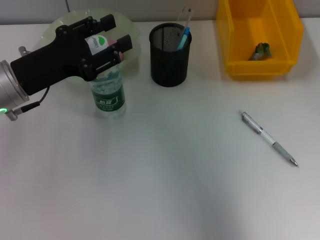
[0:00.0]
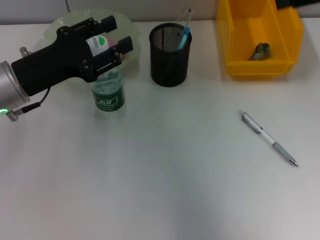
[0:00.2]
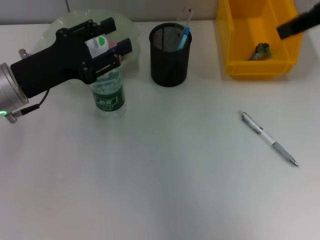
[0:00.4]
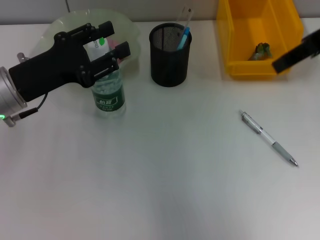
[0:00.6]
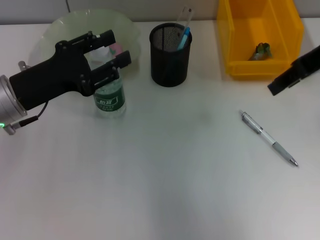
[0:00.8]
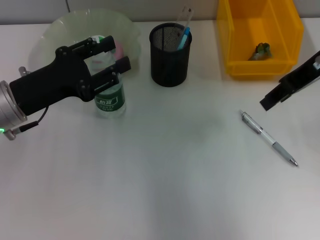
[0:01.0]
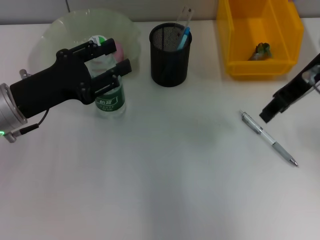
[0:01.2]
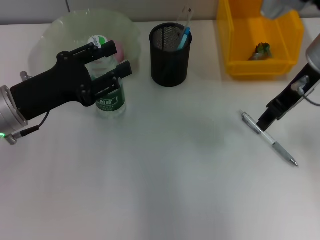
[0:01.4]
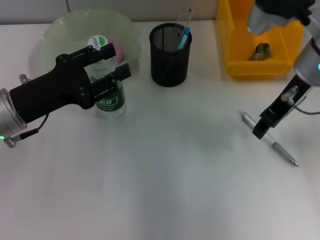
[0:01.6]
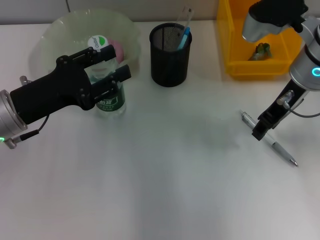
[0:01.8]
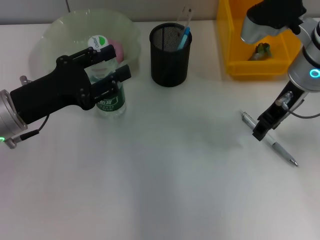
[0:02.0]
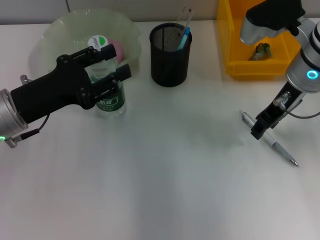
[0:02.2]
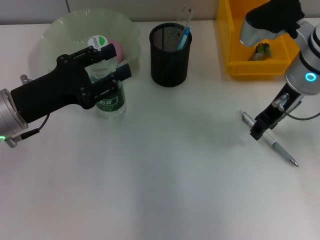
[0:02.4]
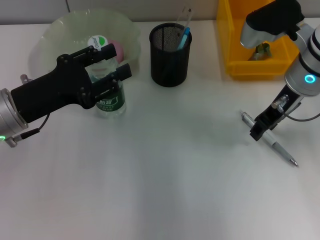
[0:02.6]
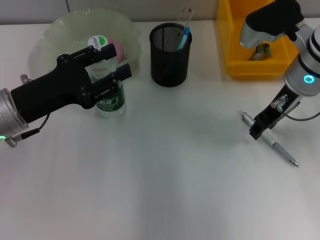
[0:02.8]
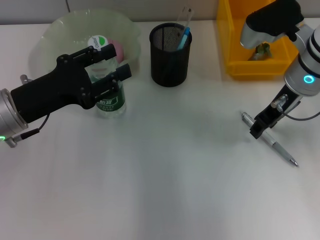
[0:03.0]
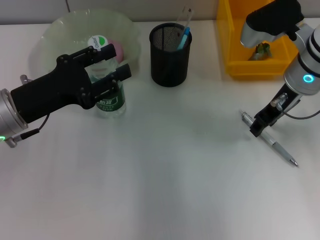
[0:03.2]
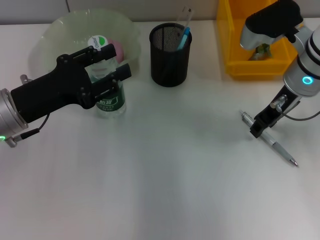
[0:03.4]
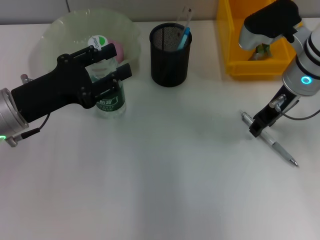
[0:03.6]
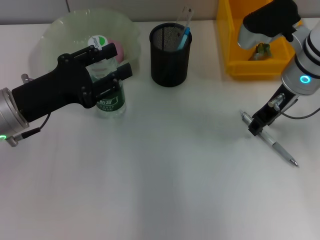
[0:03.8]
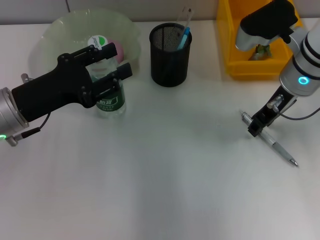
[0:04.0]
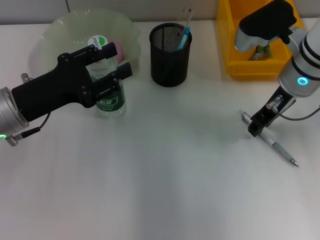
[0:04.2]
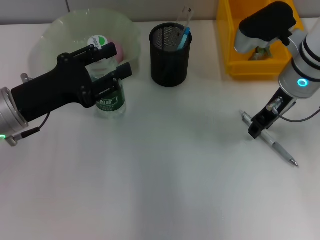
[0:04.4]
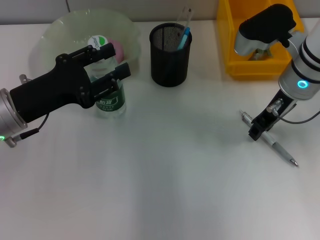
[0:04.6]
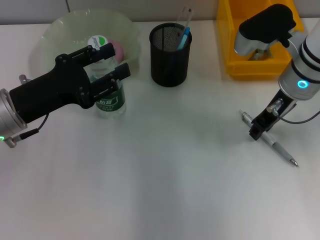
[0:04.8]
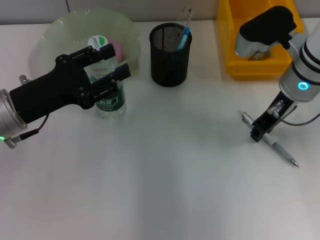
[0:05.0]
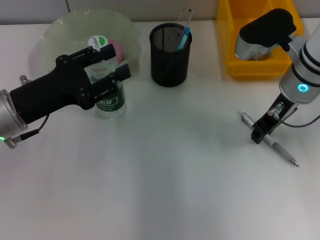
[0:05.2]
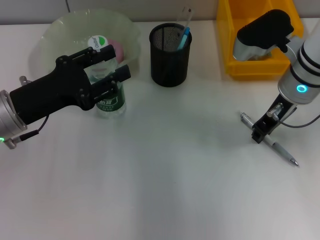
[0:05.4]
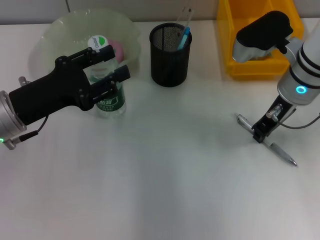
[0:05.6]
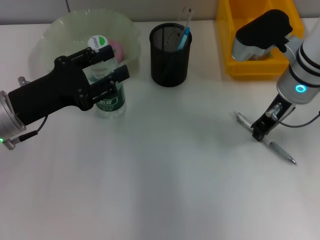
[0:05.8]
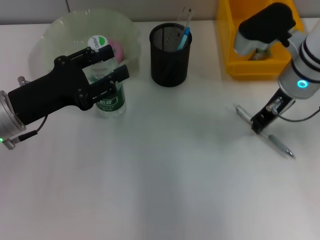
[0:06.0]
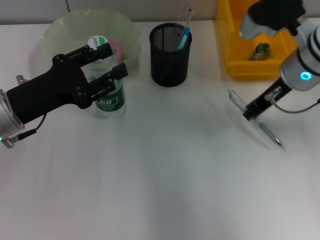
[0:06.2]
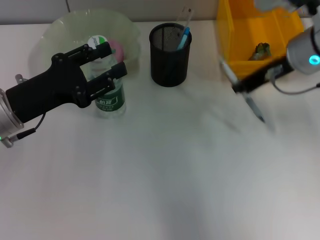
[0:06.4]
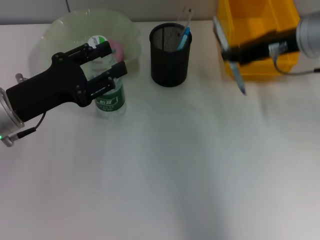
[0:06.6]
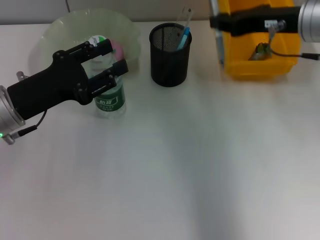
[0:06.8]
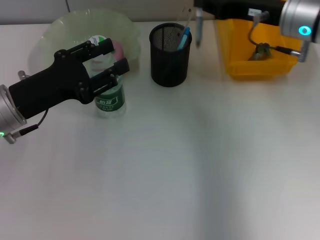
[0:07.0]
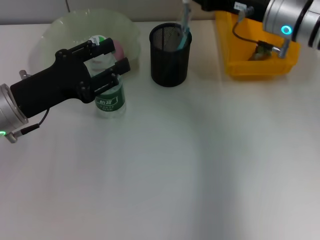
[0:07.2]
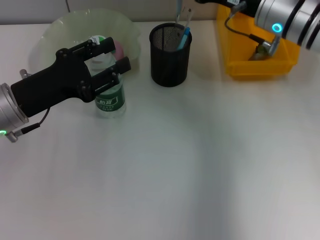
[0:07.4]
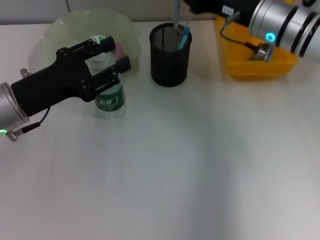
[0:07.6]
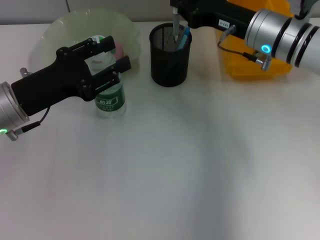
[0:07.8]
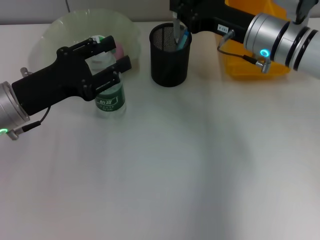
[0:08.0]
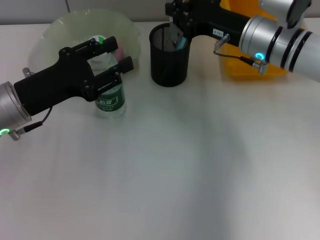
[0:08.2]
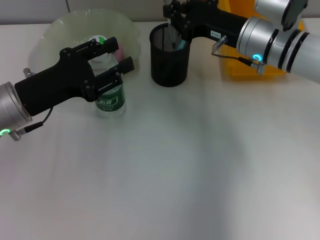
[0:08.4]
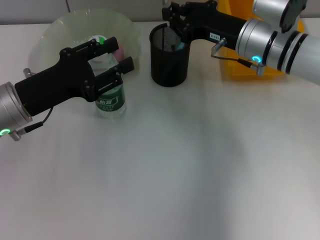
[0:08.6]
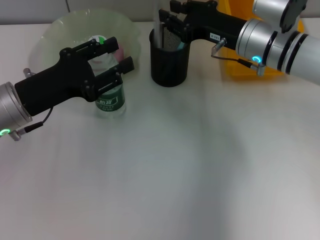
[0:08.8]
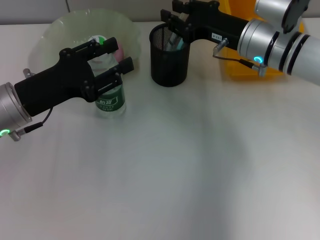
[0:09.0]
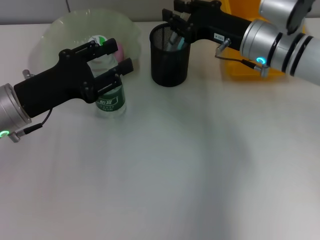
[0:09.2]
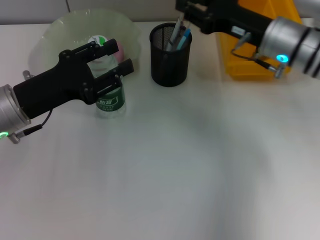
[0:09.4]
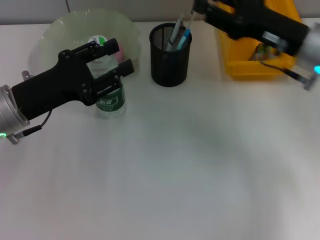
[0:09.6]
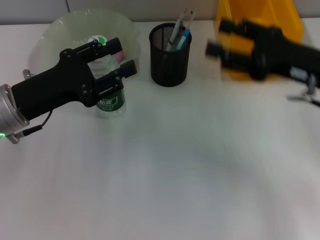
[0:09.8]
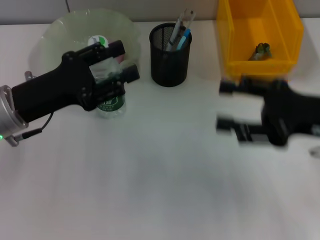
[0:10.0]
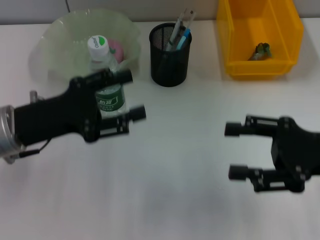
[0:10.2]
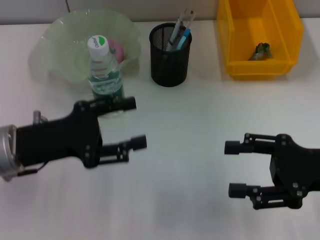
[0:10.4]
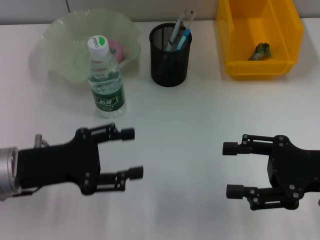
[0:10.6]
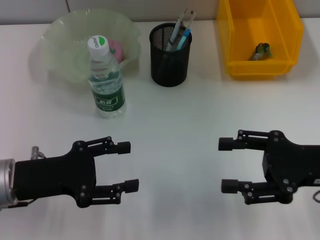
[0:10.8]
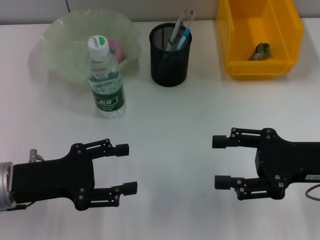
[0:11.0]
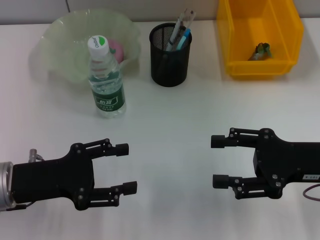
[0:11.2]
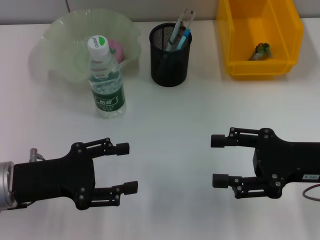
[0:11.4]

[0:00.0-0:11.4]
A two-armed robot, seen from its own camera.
Step, 0:00.0 to 0:05.4: Grab the gray spring-action pen with the right hand.
Step, 0:05.8 to 0:09.2: Place the gray spring-action pen into the pen holder with the right hand.
0:00.0 to 0:01.4: The right gripper travels downward, to the left and forward by about 15 cm.
0:01.4 to 0:02.8: The right gripper travels downward by some 5 cm.
0:02.8 to 0:04.2: The two grippers keep their place.
0:04.2 to 0:05.6: Neither gripper changes place.
0:07.2 to 0:08.6: The right gripper moves about 5 cm.
0:08.6 to 0:10.0: The right gripper heads backward and to the right, covering some 20 cm, and opens.
0:10.0 to 0:11.4: The left gripper heads backward, covering roughly 5 cm.

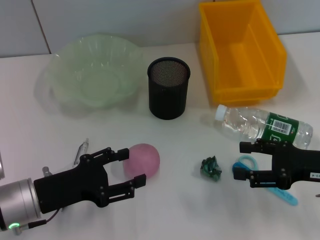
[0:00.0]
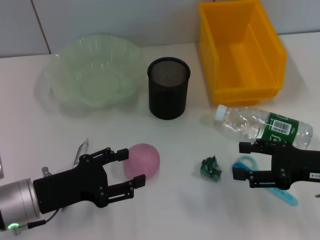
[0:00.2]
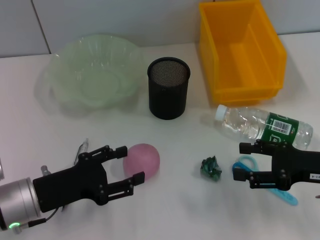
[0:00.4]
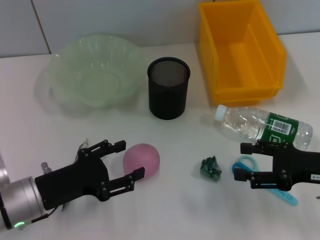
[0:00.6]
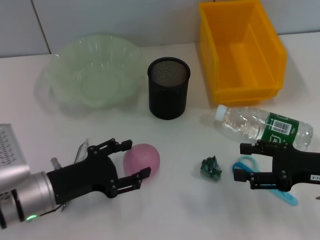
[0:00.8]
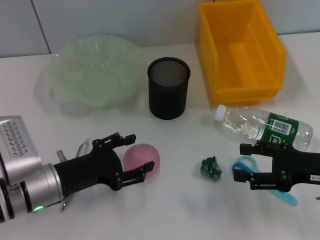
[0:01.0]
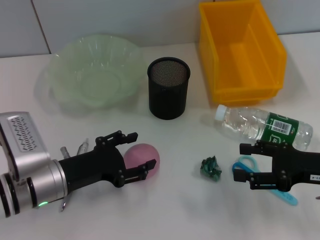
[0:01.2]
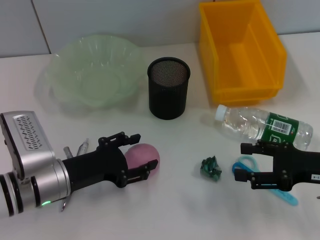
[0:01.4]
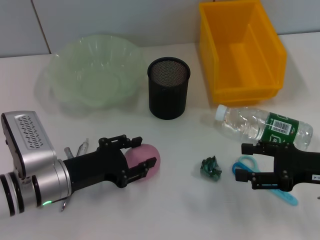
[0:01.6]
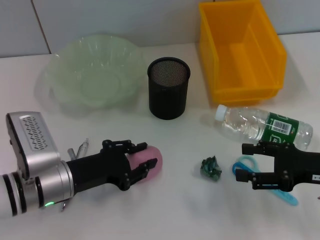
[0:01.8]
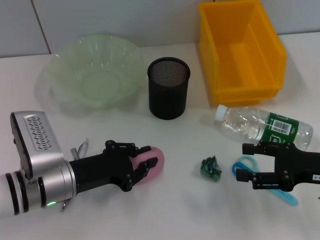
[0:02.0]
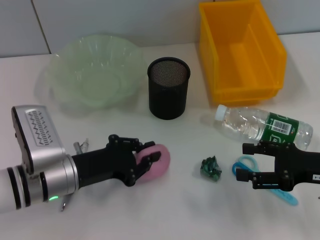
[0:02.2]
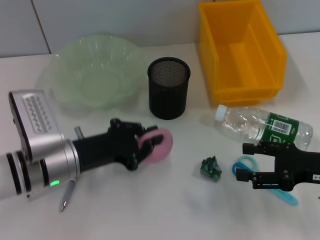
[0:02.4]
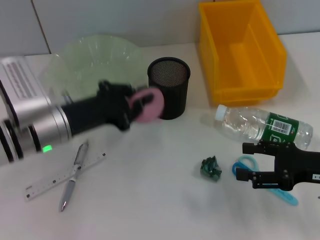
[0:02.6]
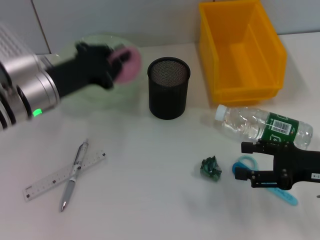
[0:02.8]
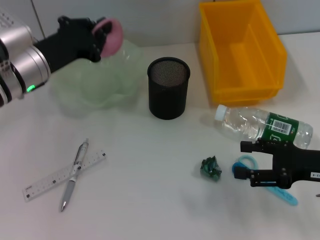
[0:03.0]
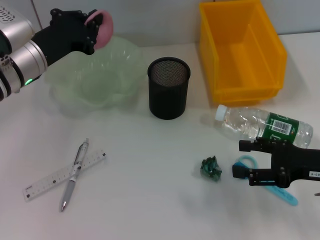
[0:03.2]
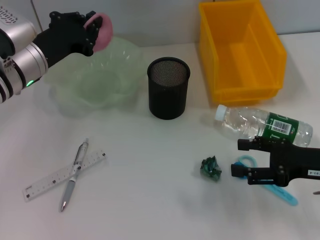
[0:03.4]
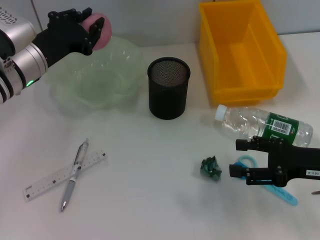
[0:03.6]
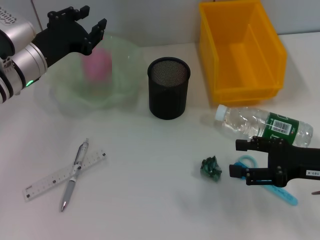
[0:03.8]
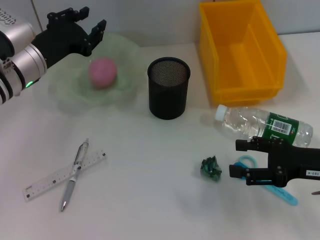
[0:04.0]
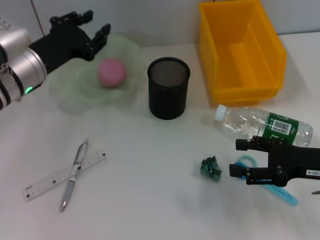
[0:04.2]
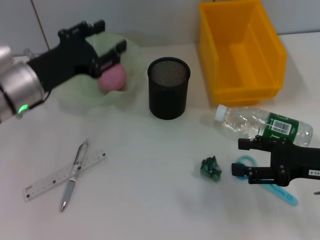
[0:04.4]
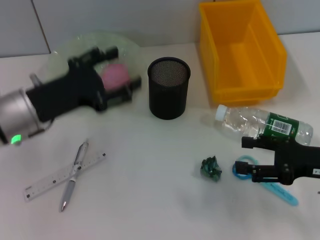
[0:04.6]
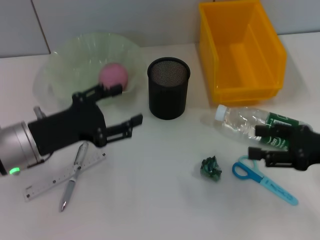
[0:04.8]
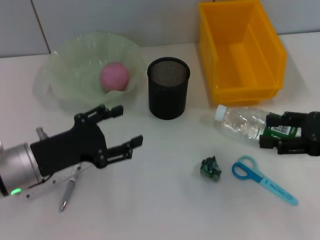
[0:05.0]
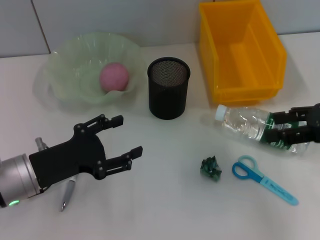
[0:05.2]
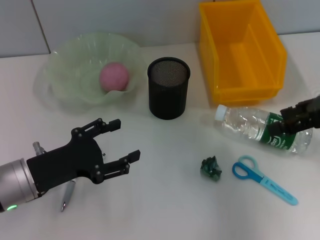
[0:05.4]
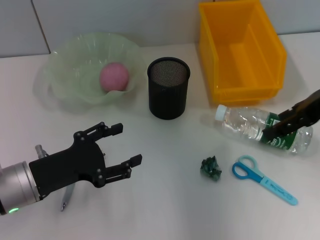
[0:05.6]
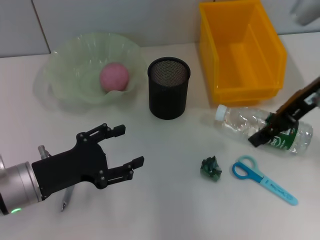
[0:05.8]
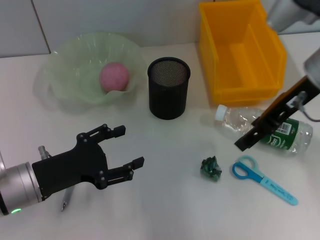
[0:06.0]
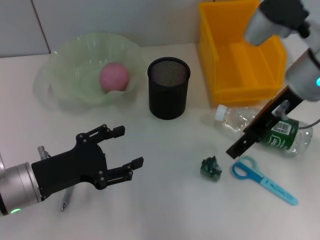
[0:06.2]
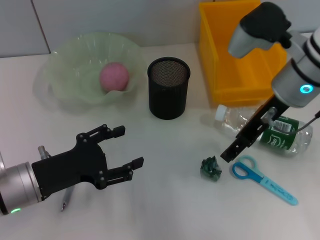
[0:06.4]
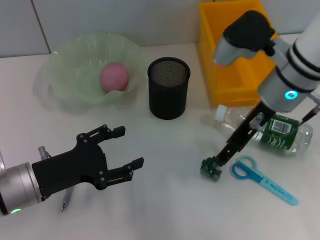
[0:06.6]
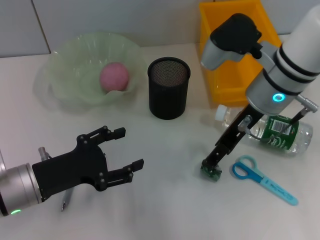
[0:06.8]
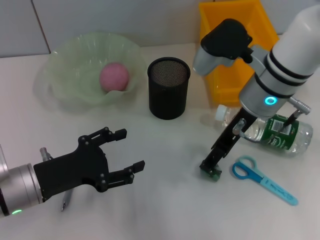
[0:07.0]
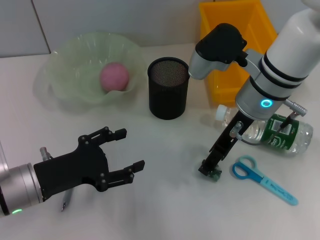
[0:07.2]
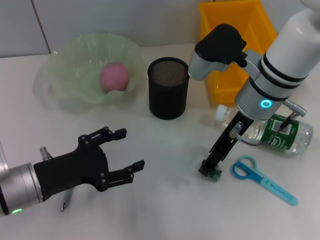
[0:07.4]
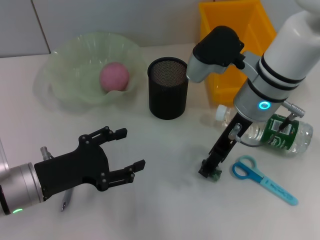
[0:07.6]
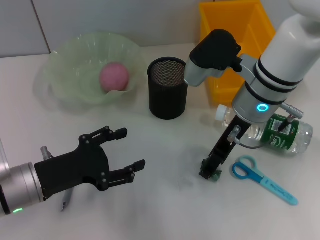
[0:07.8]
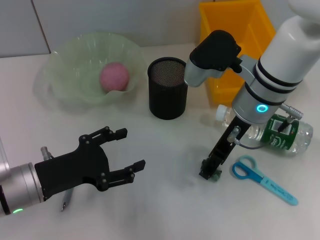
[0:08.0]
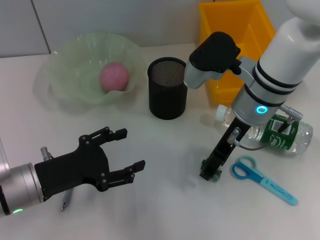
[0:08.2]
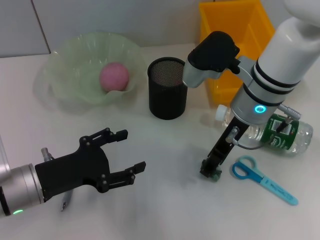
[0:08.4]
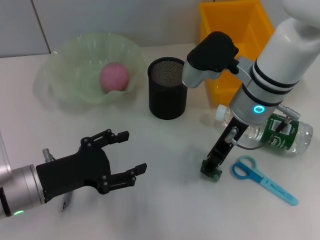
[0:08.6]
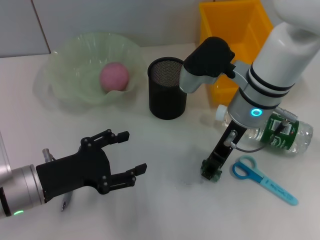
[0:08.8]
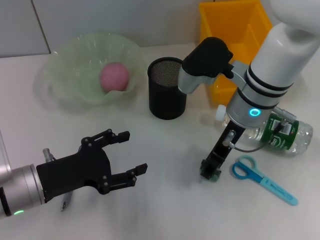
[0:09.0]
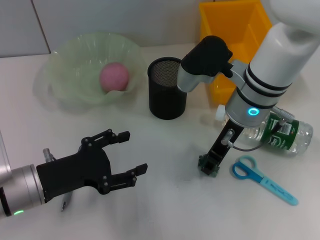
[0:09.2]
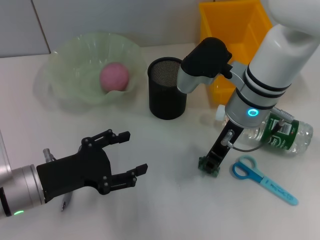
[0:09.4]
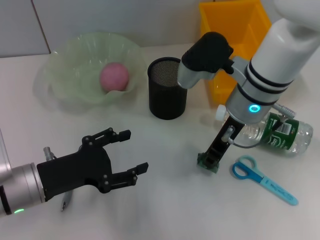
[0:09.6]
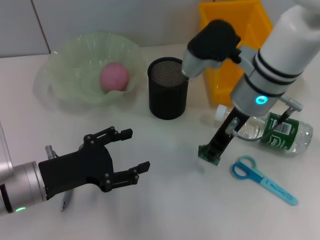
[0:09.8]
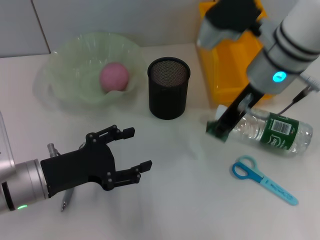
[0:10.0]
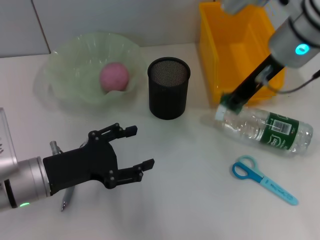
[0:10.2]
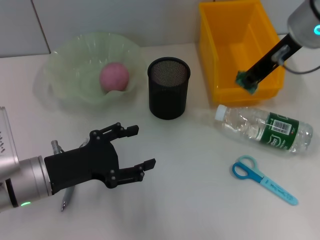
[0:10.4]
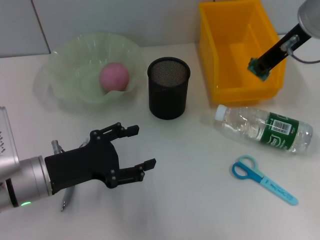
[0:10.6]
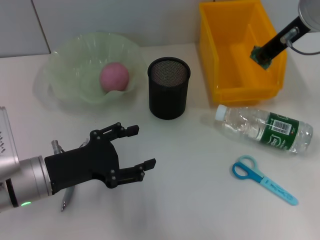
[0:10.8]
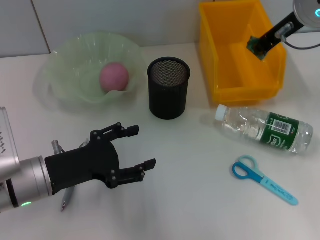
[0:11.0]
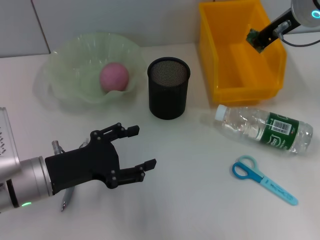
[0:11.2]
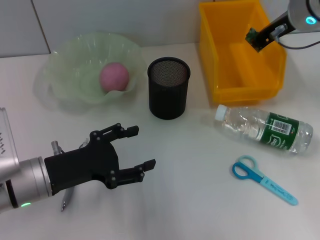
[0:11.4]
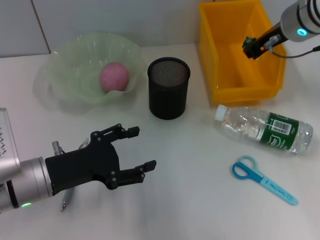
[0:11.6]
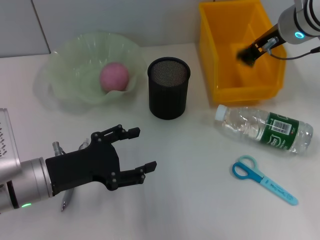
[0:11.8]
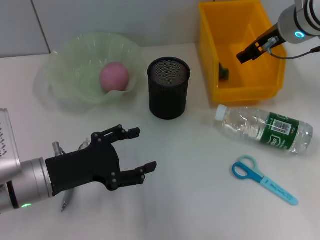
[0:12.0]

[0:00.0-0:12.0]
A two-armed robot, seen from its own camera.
Step, 0:00.0 to 0:01.8: Grab the peach with the left hand.
Step, 0:02.0 to 0:04.4: Place the peach into the fruit bowl with the left hand.
Step, 0:04.6 to 0:09.2: Grab the plastic with the right hand.
0:00.0 to 0:01.6: The grippers make only small movements.
0:01.6 to 0:03.0: The left gripper is displaced forward and upward by roughly 15 cm, and closes.
0:03.0 to 0:04.4: The left gripper opens its fingers.
0:04.4 to 0:06.0: The right gripper goes about 20 cm upward, forward and to the left. The left gripper shifts about 10 cm backward and downward, and opens up.
0:06.0 to 0:07.6: The right gripper goes roughly 10 cm to the left and downward.
0:07.6 to 0:09.0: The right gripper closes.
0:09.0 to 0:10.4: The right gripper travels upward and to the right by some 15 cm, and closes its fingers.
0:10.4 to 0:12.0: The right gripper heads downward, covering approximately 5 cm, and opens up.
